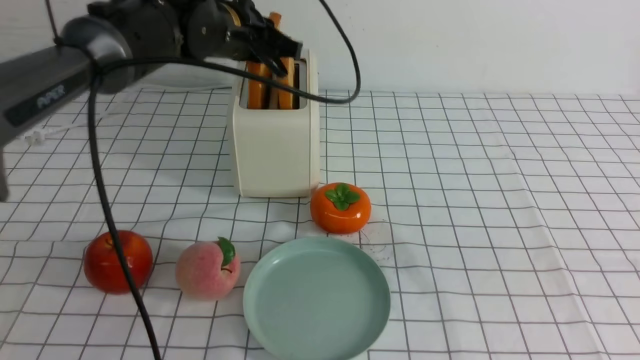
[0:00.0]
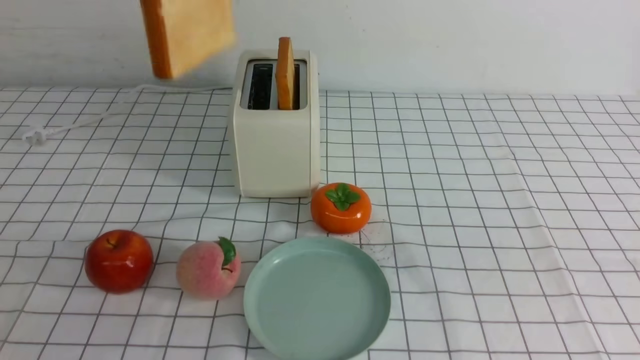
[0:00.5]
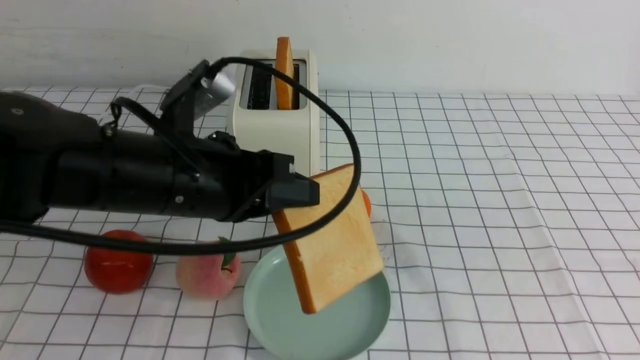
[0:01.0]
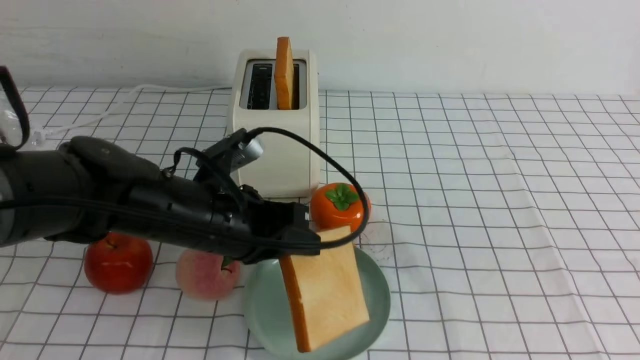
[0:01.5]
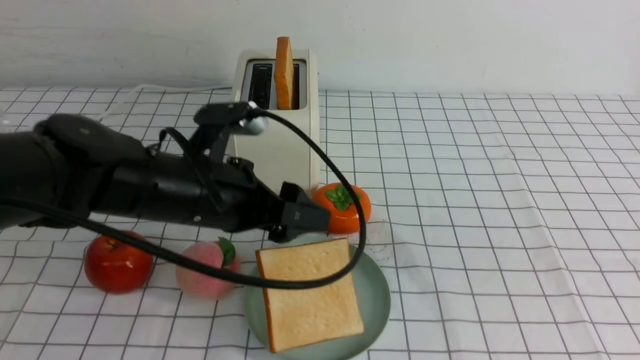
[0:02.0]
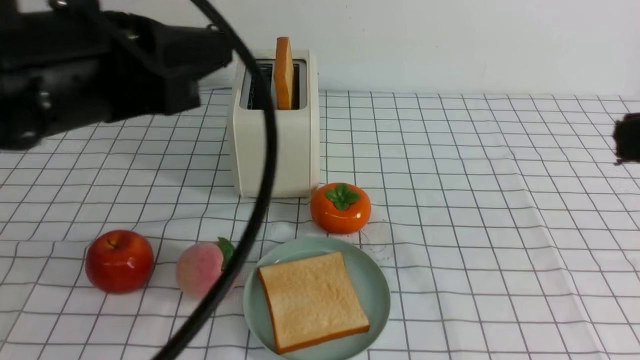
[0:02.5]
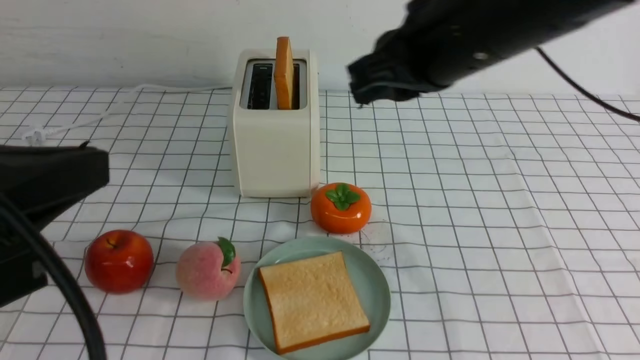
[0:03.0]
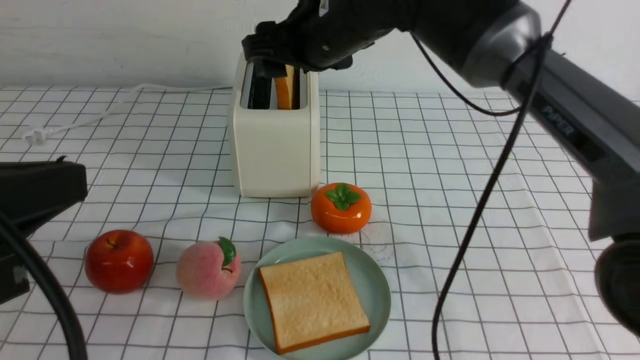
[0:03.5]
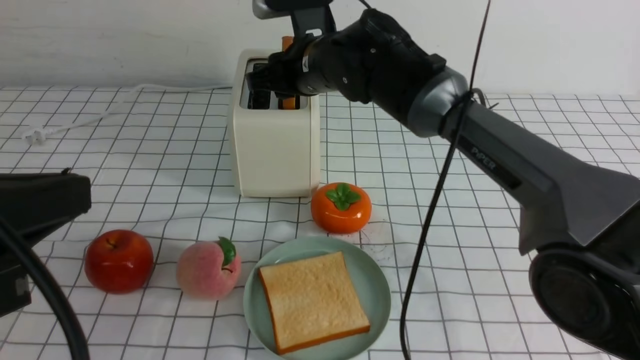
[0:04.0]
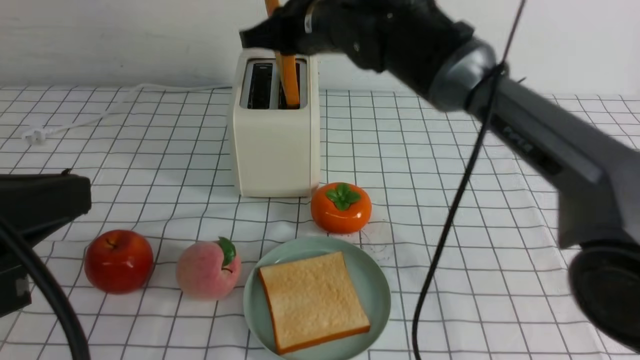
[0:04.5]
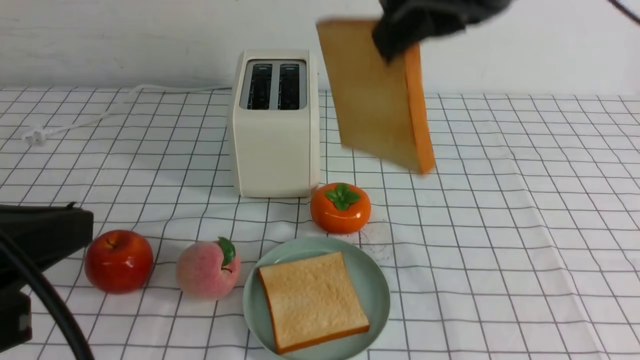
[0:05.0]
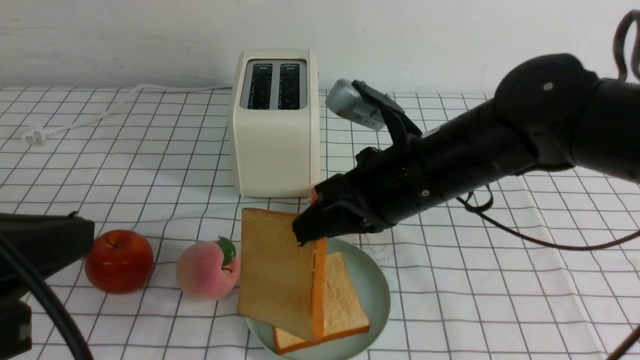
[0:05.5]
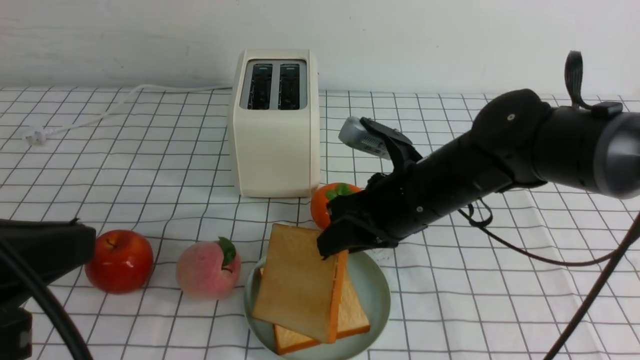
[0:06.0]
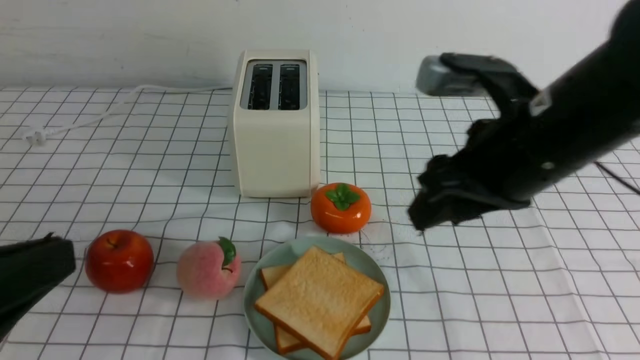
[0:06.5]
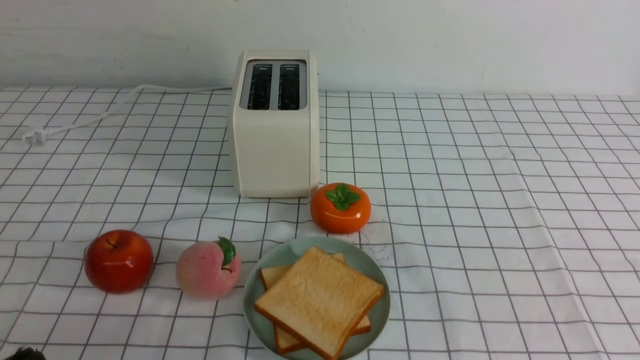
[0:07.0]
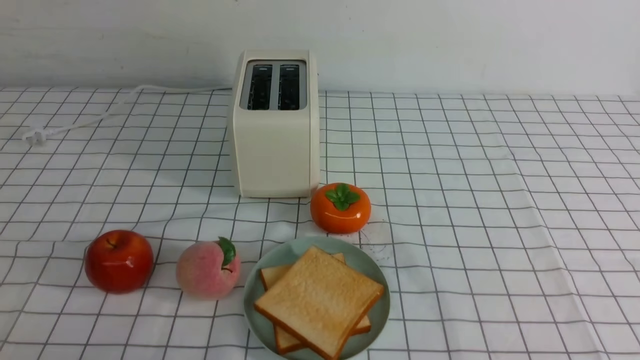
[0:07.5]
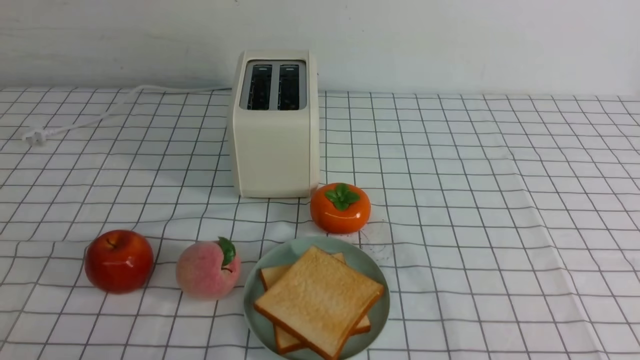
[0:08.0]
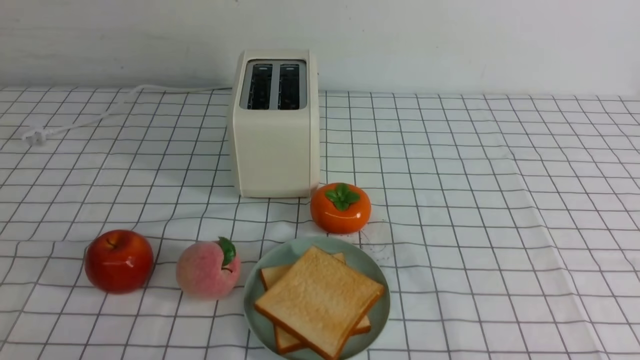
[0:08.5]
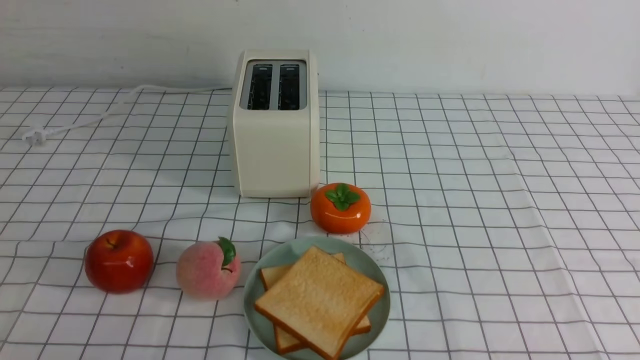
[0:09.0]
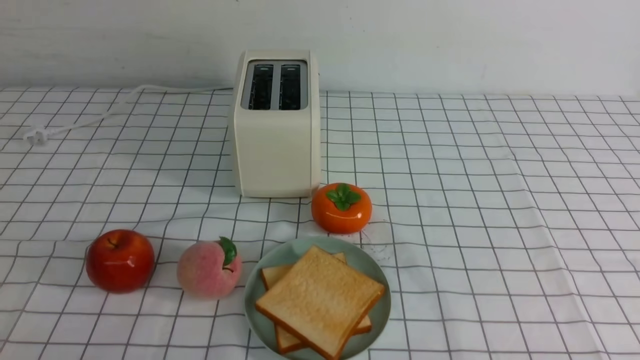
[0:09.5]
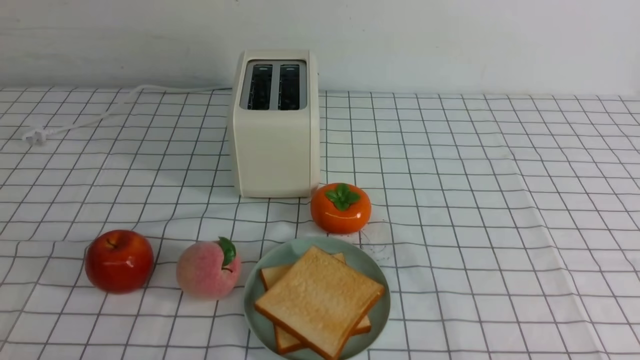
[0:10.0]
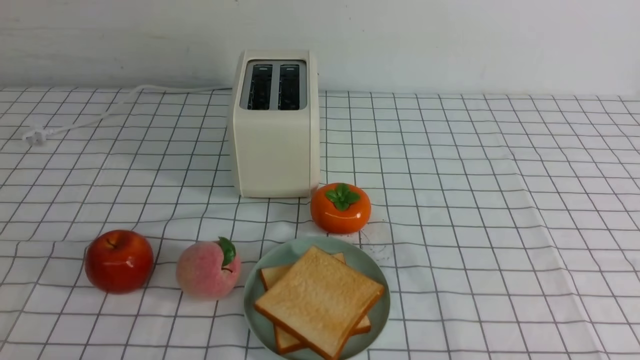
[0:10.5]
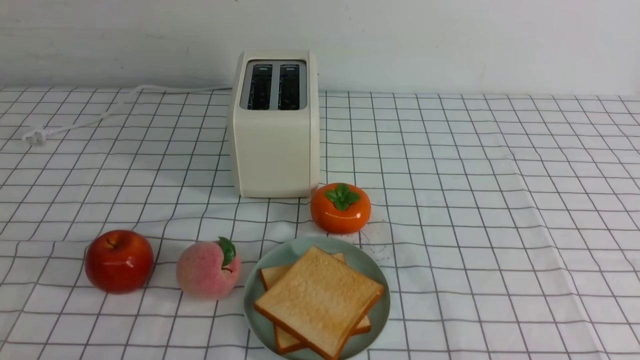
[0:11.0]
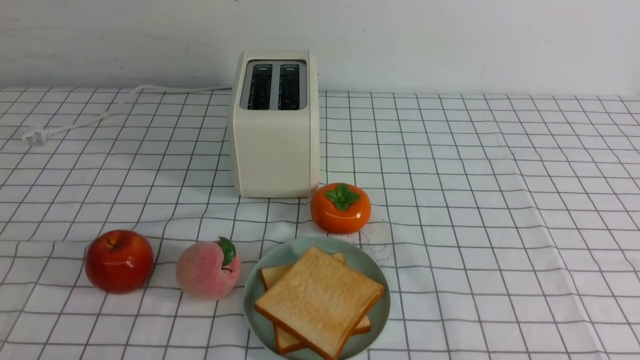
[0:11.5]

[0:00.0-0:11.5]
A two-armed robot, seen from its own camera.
Task of the whole recording: take toasted bread from bread machine on white checkered table place on plate.
Step, 0:00.5 to 0:02.0: use the left arm to put a slice of bread into the empty plate.
Step, 0:02.5 to 0:04.5: use the right arm to take out a slice of bread.
Step, 0:05.0 to 0:06.0: use the right arm to put a slice of bread into the plate.
0:00.0 to 0:02.0: The left gripper swings up and down, about 25 cm each way, with 2 reversals, and opens its fingers.
0:02.0 to 0:04.0: The right gripper is displaced forward and to the left by approximately 40 cm, and opens, while the left gripper moves backward, upward and to the left, about 25 cm, and closes.
0:04.0 to 0:06.0: The right gripper travels backward and to the right by approximately 15 cm, goes upward and returns, approximately 15 cm each way, and closes, then opens again.
0:06.0 to 0:07.5: The right gripper moves backward and to the right, approximately 35 cm, and closes. Meanwhile the left gripper heads downward and backward, covering some 15 cm.
